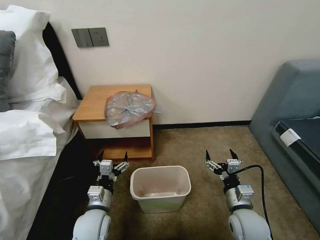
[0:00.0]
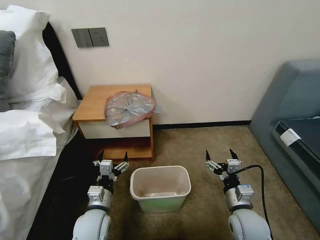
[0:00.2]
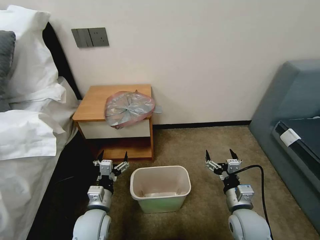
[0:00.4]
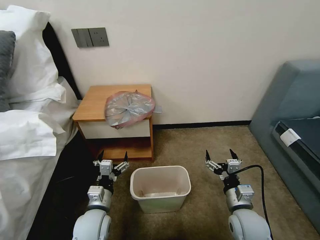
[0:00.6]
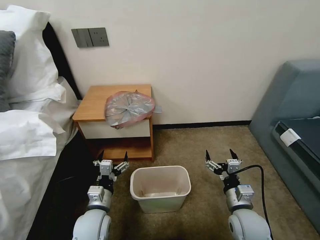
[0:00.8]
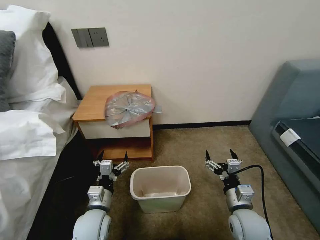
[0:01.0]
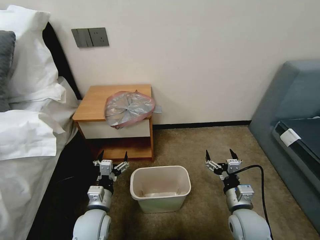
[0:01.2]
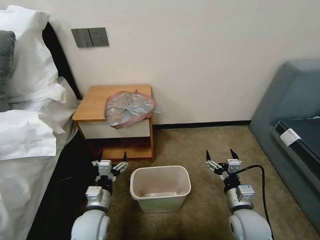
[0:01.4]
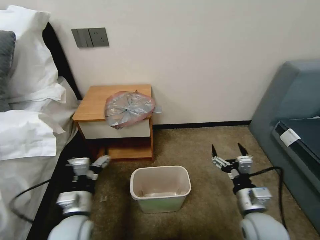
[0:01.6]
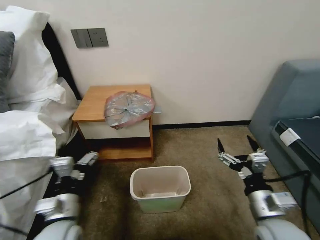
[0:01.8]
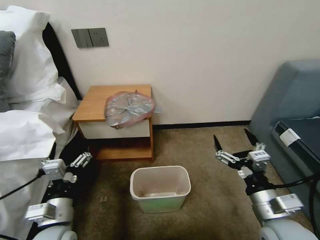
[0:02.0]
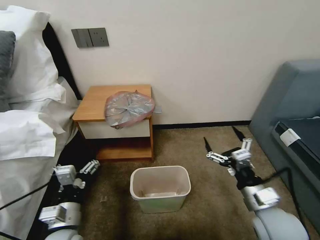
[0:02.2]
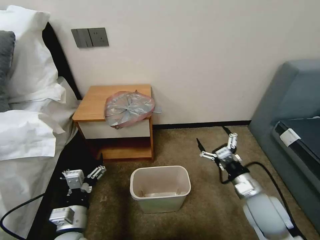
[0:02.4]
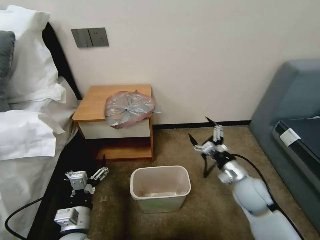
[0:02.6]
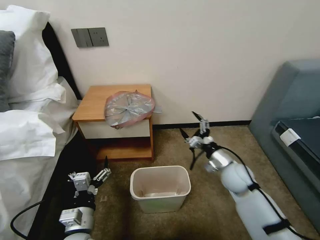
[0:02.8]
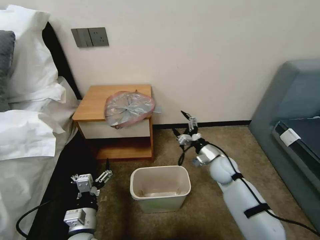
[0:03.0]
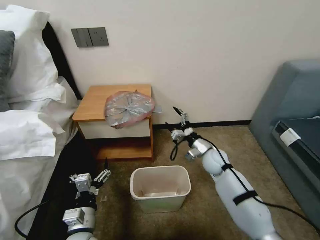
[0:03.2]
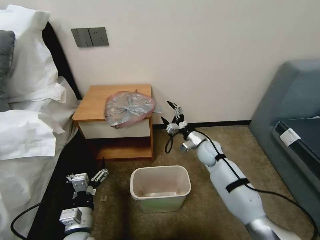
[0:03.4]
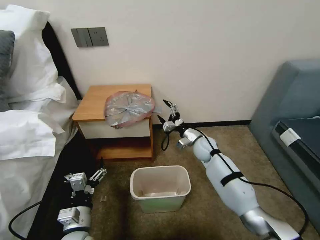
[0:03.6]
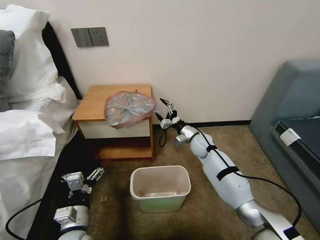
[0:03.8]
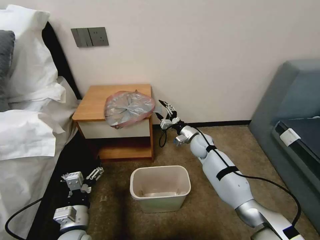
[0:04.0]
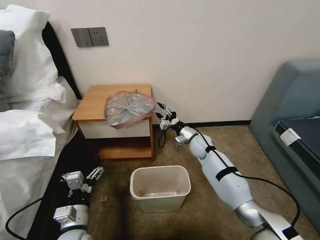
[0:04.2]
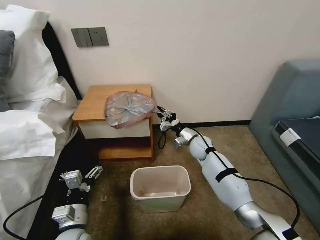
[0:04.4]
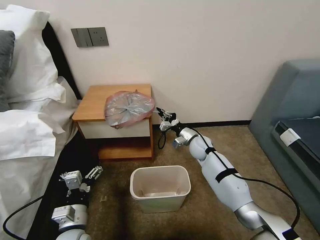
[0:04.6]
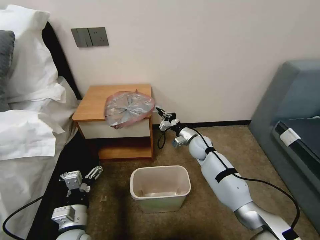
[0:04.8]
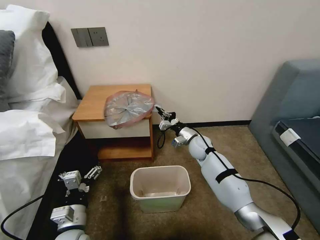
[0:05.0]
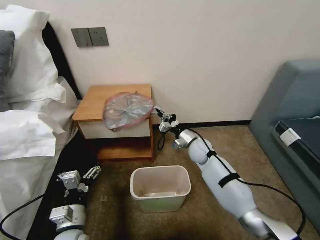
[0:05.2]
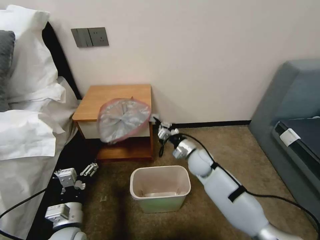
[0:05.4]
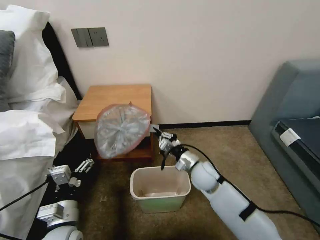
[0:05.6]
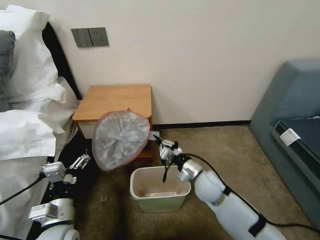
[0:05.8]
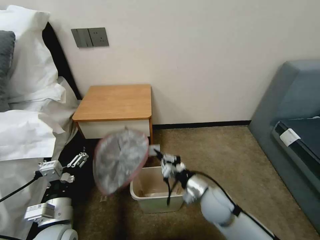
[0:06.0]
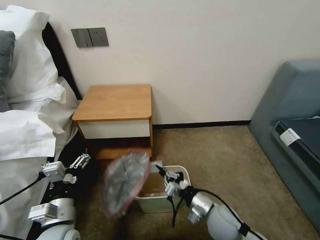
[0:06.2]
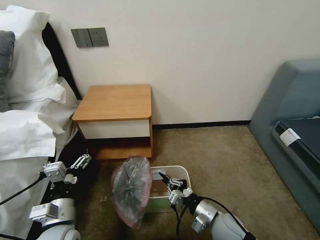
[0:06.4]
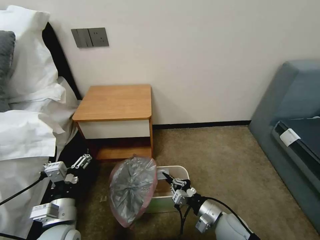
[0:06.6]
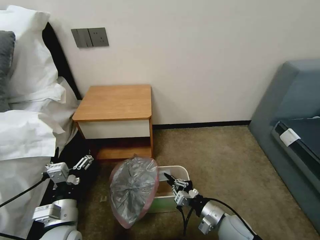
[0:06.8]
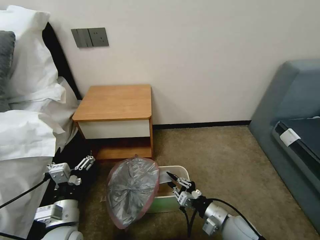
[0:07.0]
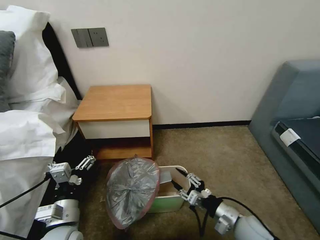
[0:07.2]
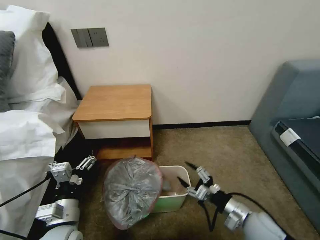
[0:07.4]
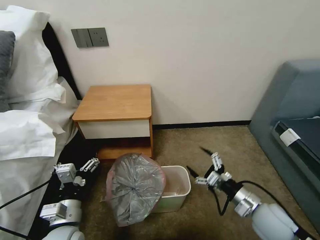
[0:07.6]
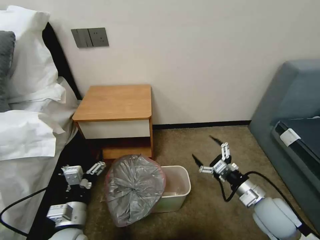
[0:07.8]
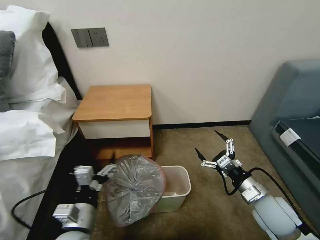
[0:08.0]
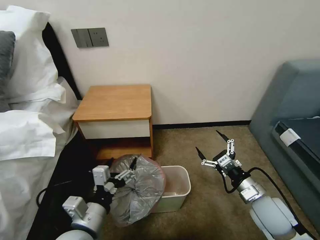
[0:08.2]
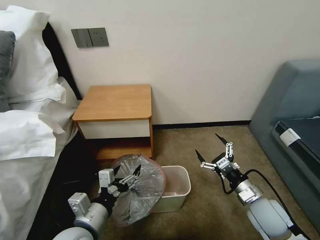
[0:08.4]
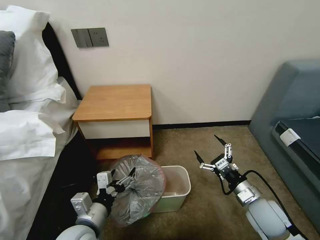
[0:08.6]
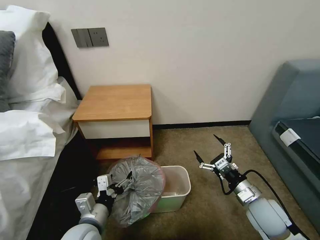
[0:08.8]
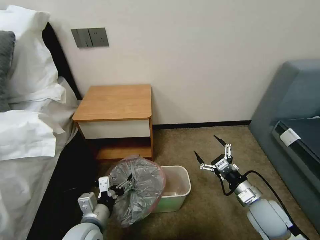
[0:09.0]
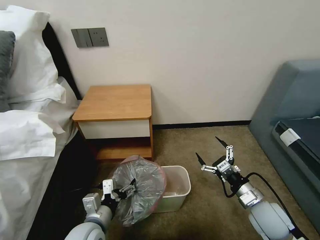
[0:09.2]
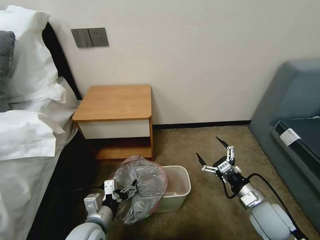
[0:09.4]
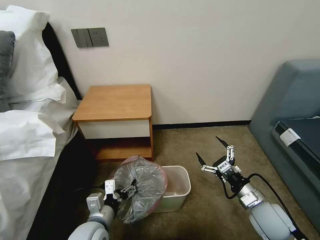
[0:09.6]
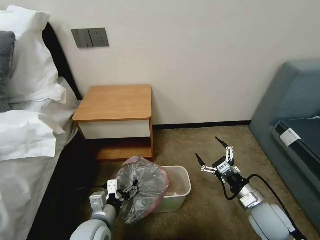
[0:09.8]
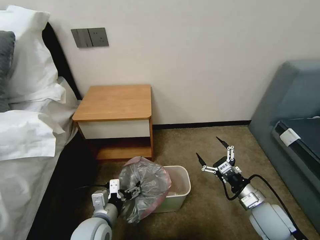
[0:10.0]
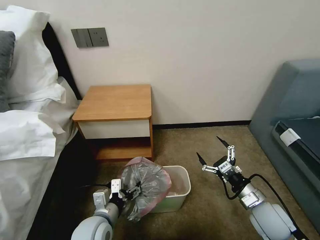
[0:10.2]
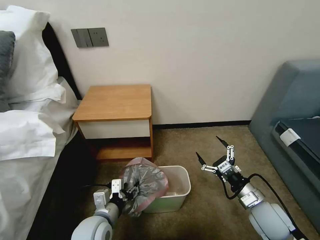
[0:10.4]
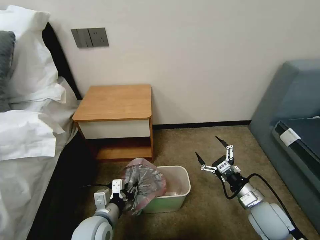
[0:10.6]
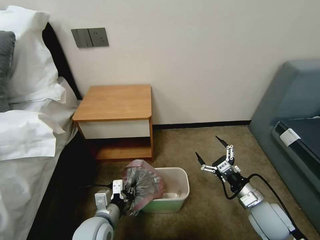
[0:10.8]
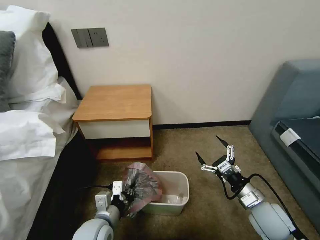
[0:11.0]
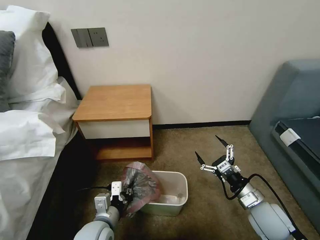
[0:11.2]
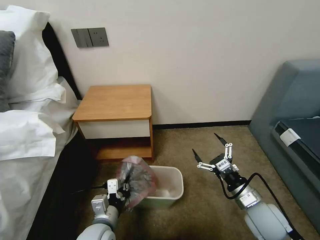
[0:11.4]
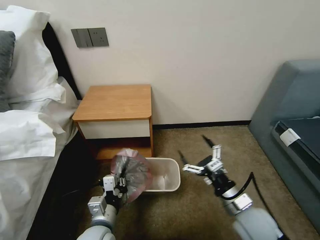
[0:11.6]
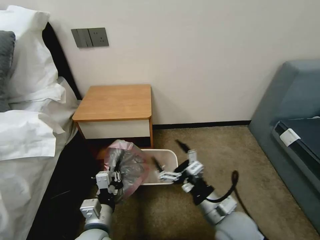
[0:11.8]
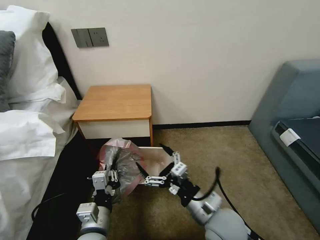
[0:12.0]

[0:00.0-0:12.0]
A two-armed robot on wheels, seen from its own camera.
Task of the whole recording: Pick up the garbage bag from the table and place it over the trash can.
0:01.6 to 0:03.0: The left gripper changes place by some 5 cm, while the right gripper heads forward, covering approximately 20 cm.
0:03.0 to 0:04.4: The right gripper travels forward and to the left by some 10 cm, and closes up.
0:04.4 to 0:06.0: The right gripper shifts roughly 20 cm backward, while the left gripper heads upward, covering about 5 cm.
0:06.0 to 0:07.6: The right gripper heads to the right and backward, covering some 15 cm, and opens its fingers.
0:09.0 to 0:10.4: There are only small adjustments of the grippers.
0:10.4 to 0:12.0: The left gripper ends up some 5 cm from where it was, and closes up. The right gripper travels to the left by roughly 15 cm.

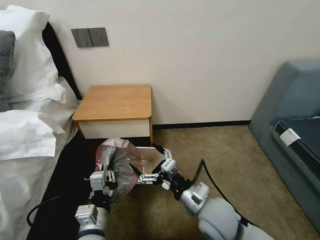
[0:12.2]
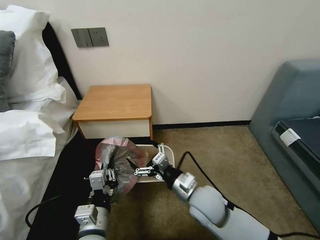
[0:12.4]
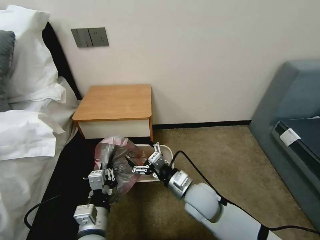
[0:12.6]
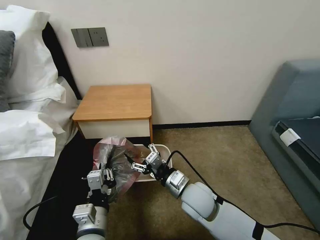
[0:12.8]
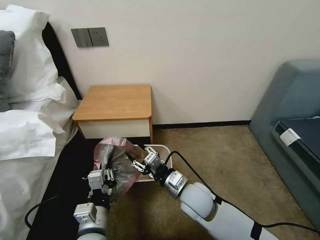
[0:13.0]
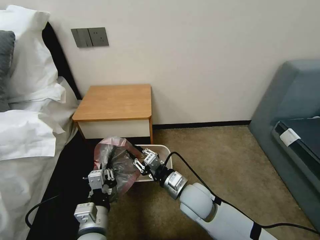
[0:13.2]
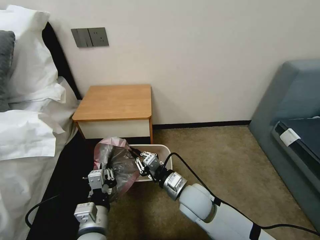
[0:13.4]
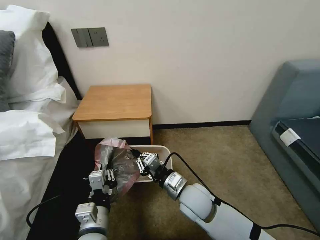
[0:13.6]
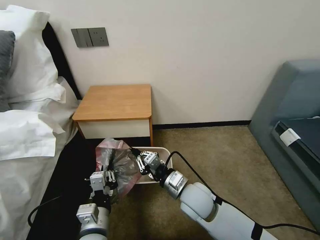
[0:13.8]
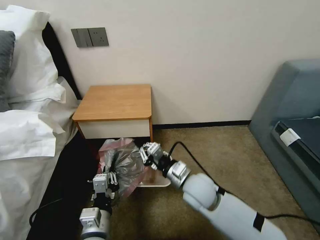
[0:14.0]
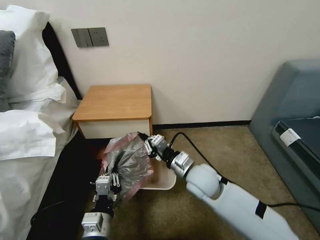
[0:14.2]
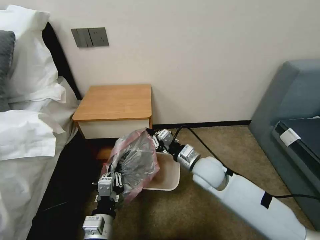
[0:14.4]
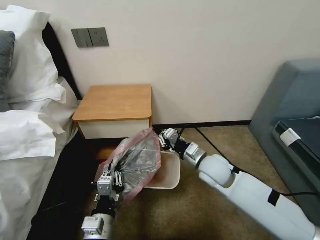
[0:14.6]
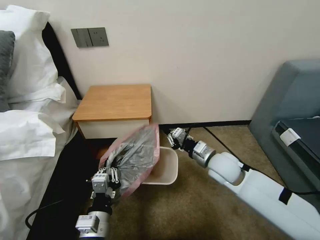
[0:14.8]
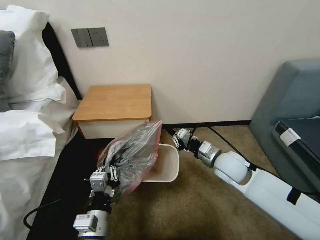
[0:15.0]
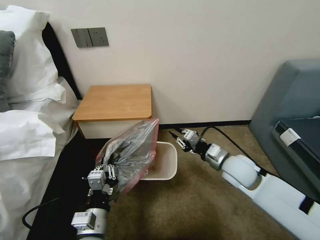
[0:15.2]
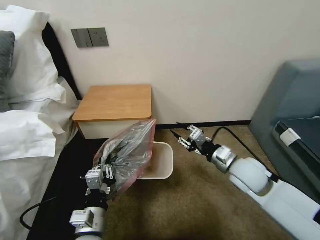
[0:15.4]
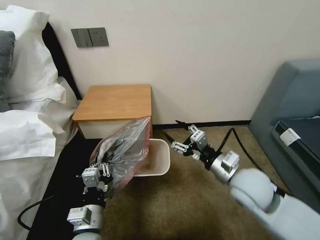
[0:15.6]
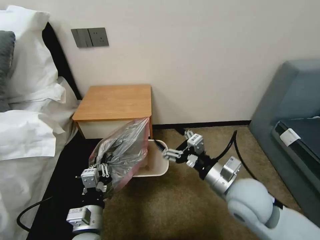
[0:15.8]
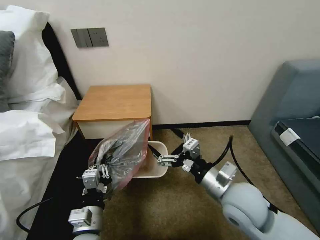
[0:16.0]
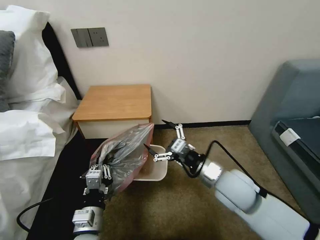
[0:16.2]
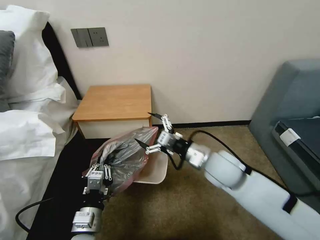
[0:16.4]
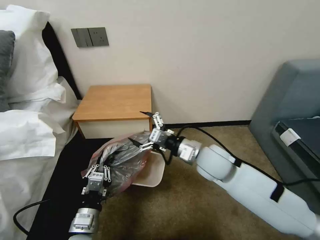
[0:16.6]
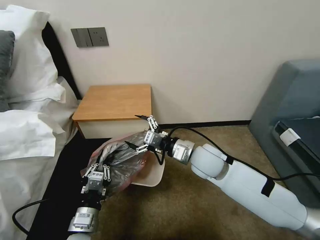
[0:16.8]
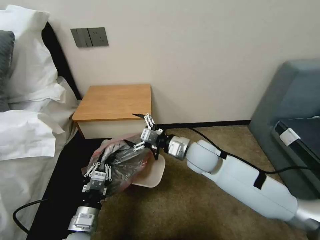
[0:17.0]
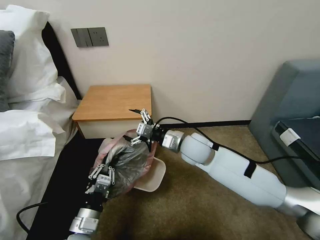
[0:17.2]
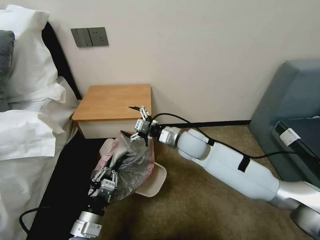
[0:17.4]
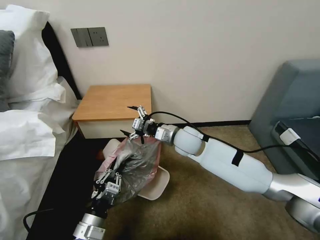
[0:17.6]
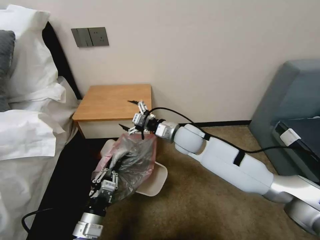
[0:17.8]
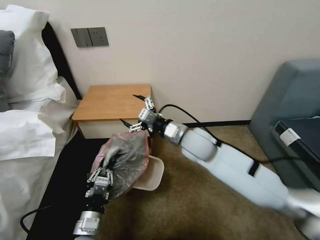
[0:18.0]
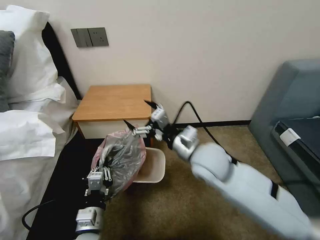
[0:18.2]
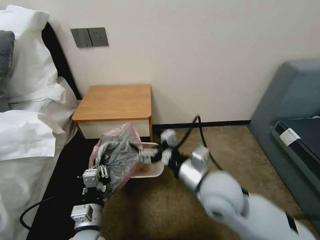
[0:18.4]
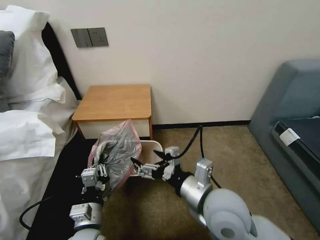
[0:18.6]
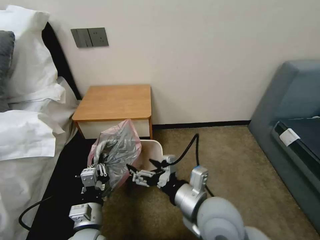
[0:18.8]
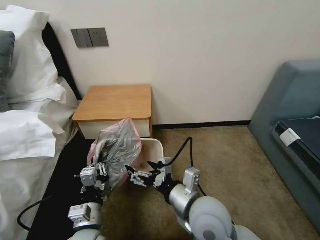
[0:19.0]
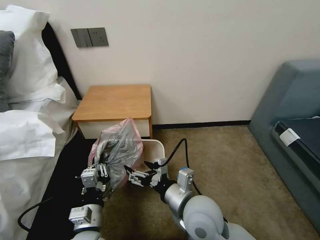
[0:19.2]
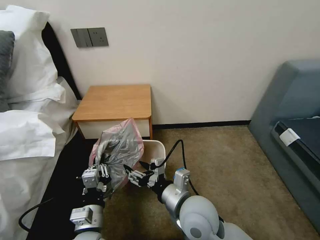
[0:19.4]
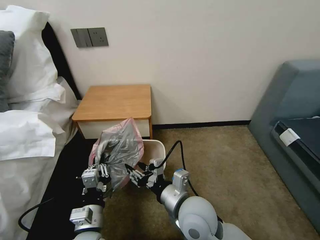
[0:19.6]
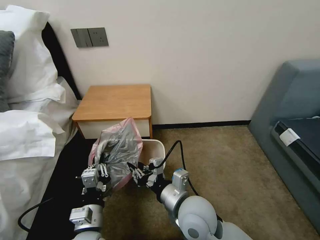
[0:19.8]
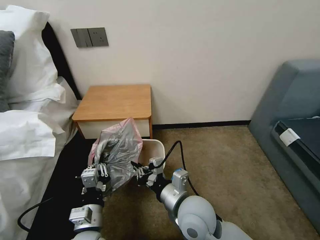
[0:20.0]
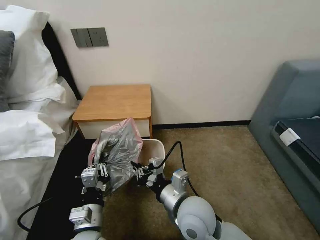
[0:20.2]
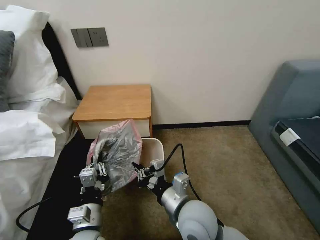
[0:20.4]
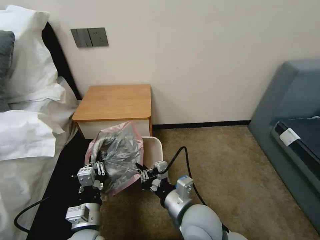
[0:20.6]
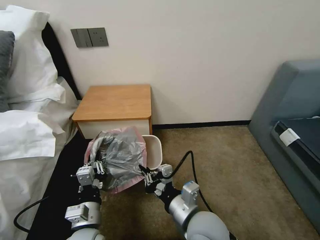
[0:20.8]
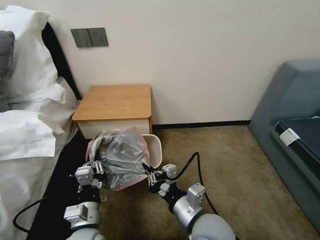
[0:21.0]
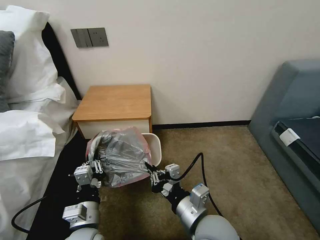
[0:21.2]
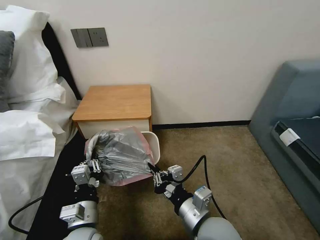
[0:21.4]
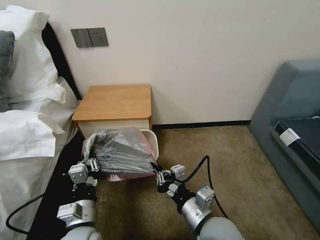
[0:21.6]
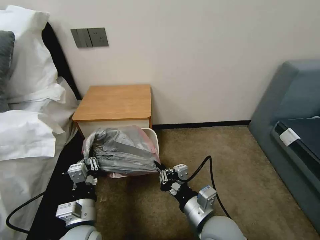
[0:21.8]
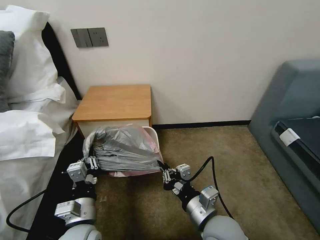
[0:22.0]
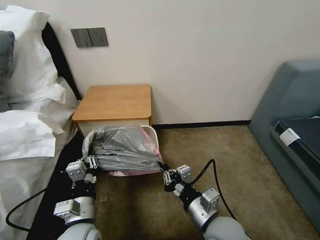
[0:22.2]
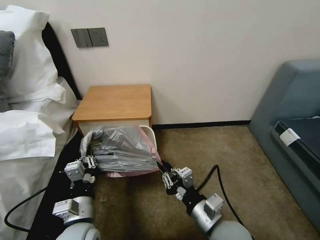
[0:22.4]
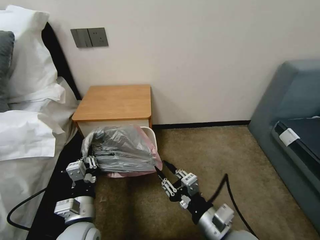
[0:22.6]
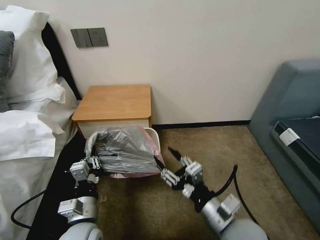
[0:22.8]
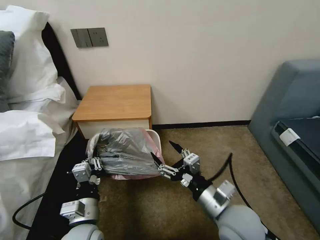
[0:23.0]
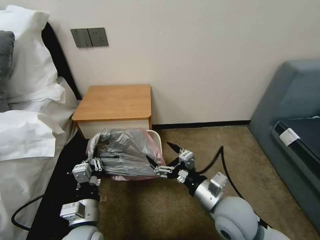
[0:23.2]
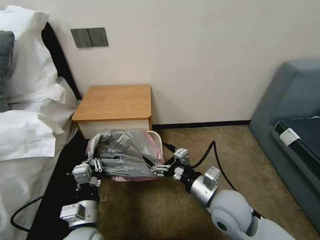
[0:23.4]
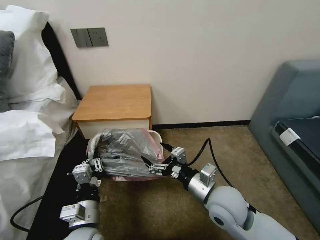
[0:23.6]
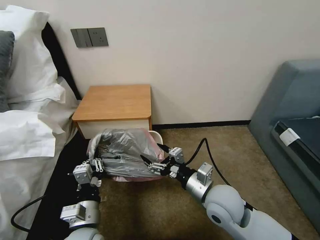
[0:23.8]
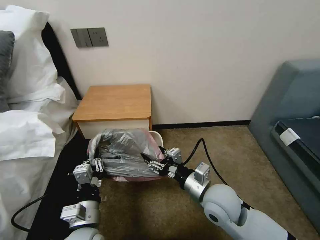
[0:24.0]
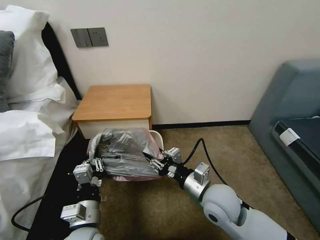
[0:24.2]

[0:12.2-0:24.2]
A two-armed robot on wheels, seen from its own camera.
Task of the whole recording: Pick up the garbage bag from the table and place it over the trash can.
0:12.2 to 0:13.8: The right gripper shifts about 5 cm forward, and closes up.
0:13.8 to 0:15.2: The right gripper travels to the right and forward by about 15 cm.
0:15.2 to 0:16.6: The right gripper moves to the left, roughly 10 cm, reaches about 10 cm backward, then returns, and opens up.
0:16.6 to 0:18.2: The right gripper moves about 10 cm forward and comes back.
0:18.2 to 0:19.8: The right gripper travels backward and downward by approximately 15 cm, and closes up.
0:19.8 to 0:21.2: The right gripper moves some 5 cm.
0:21.2 to 0:22.6: The right gripper moves to the right, roughly 5 cm.
0:22.6 to 0:24.2: The right gripper travels forward by approximately 10 cm, and opens, then closes once more.
